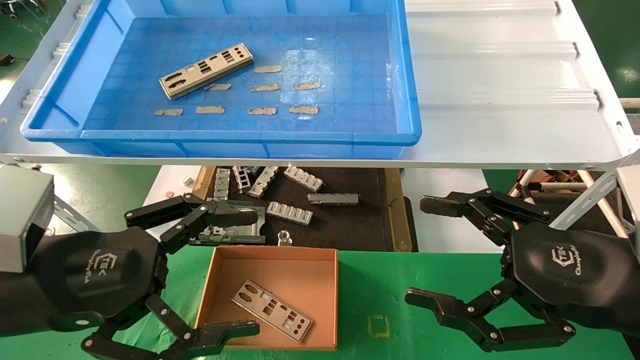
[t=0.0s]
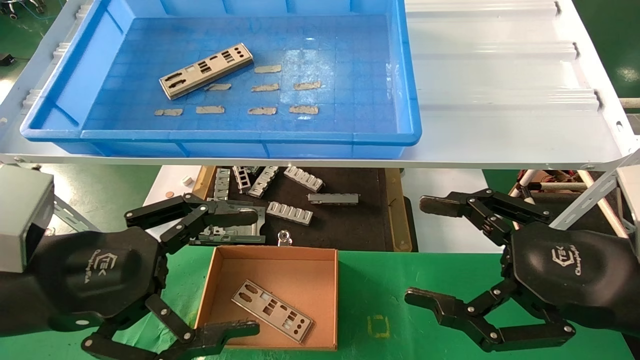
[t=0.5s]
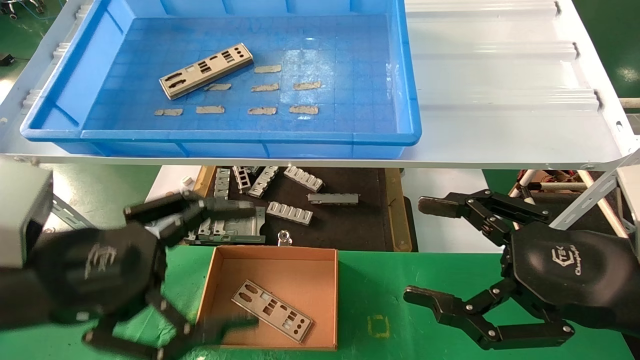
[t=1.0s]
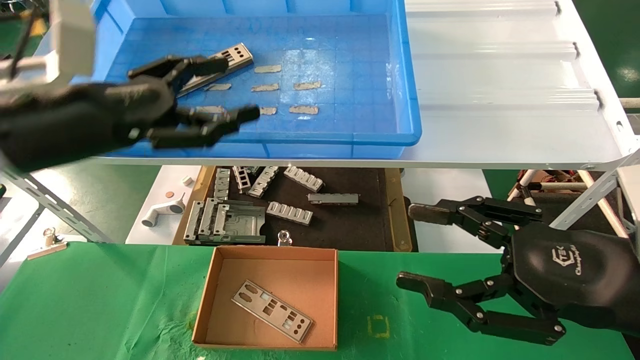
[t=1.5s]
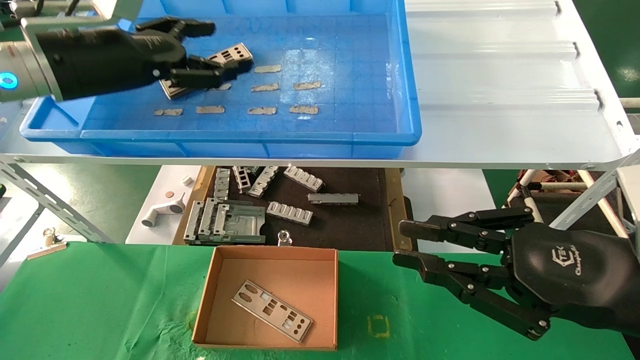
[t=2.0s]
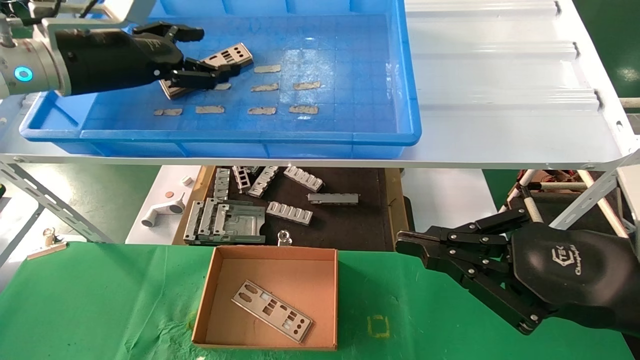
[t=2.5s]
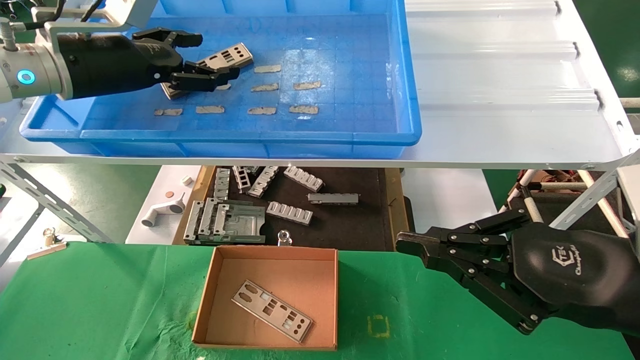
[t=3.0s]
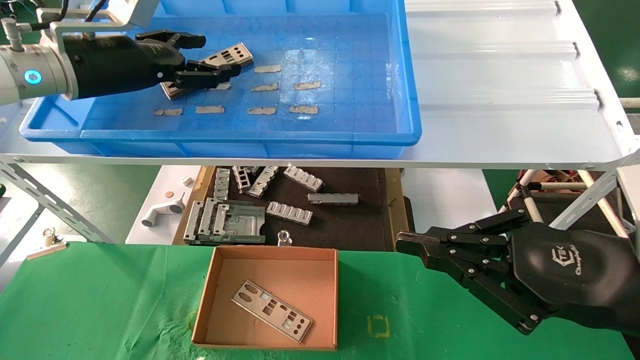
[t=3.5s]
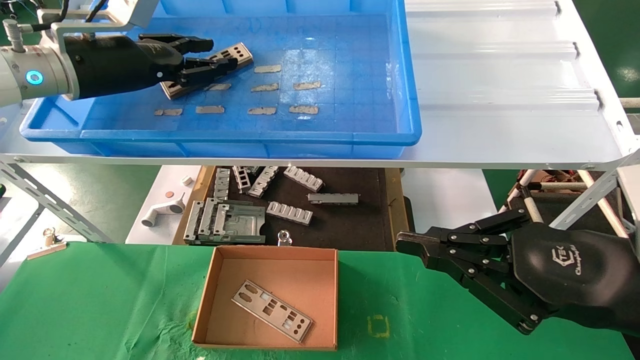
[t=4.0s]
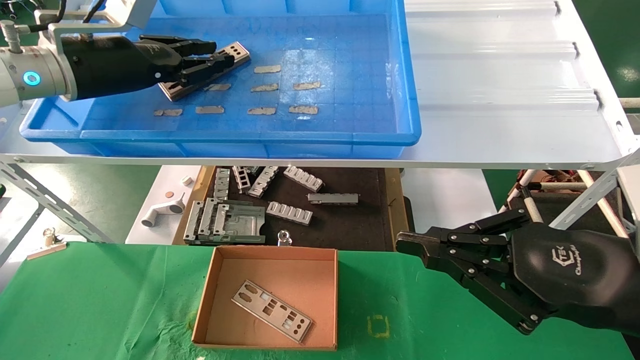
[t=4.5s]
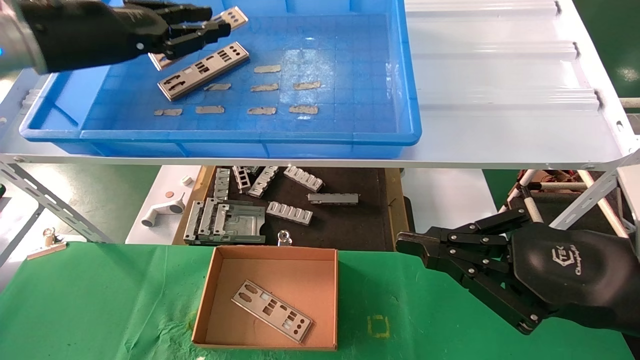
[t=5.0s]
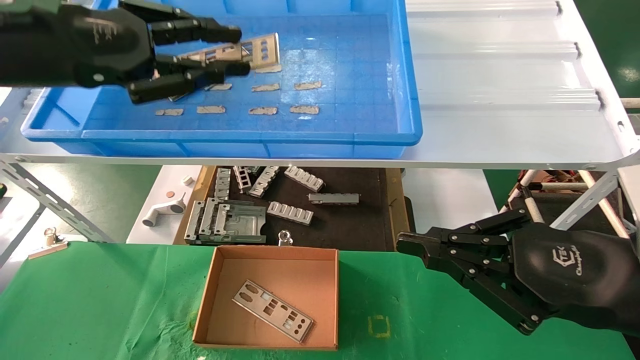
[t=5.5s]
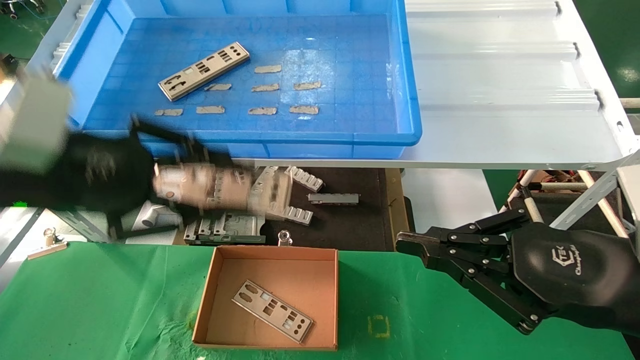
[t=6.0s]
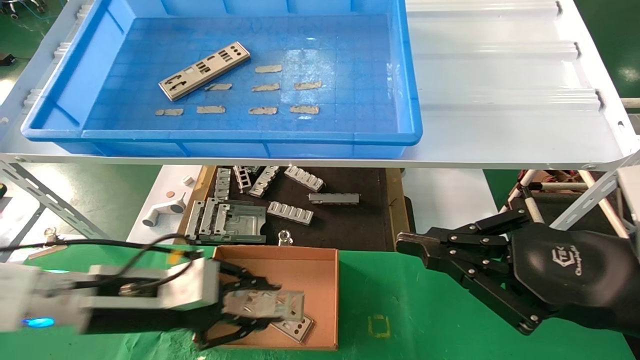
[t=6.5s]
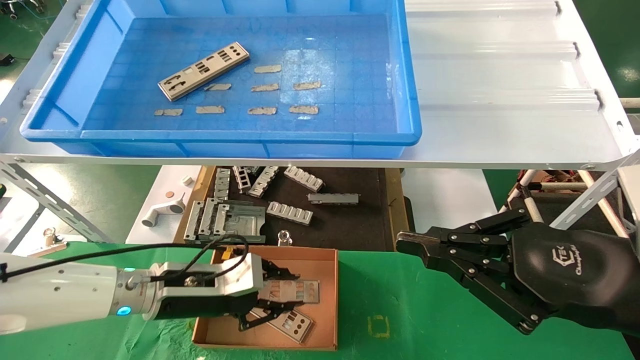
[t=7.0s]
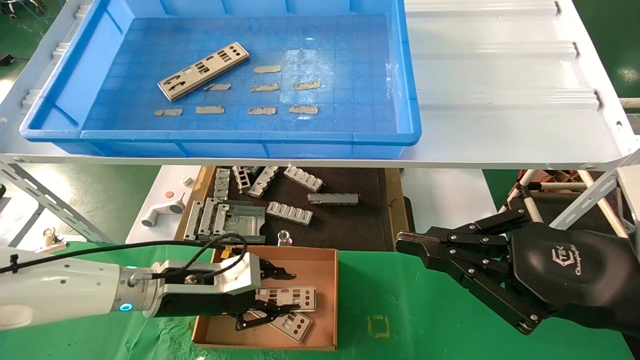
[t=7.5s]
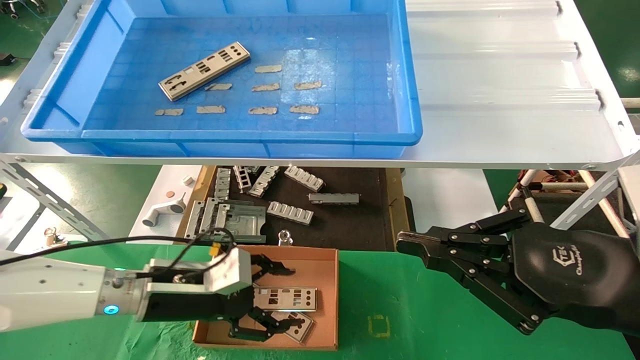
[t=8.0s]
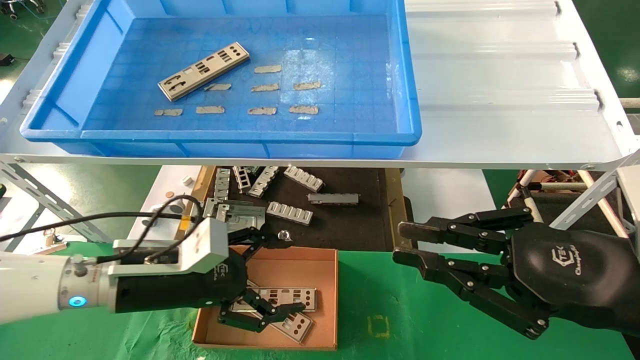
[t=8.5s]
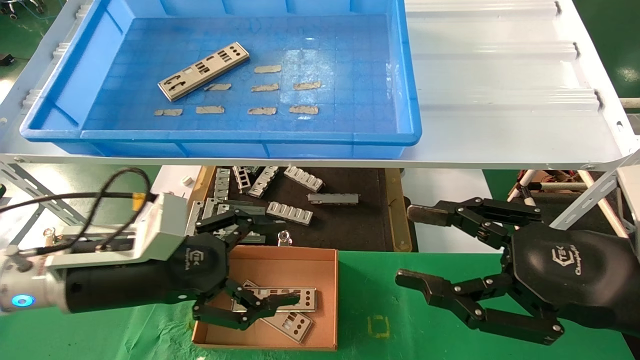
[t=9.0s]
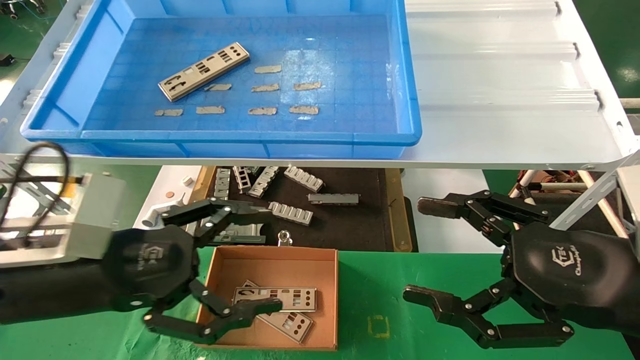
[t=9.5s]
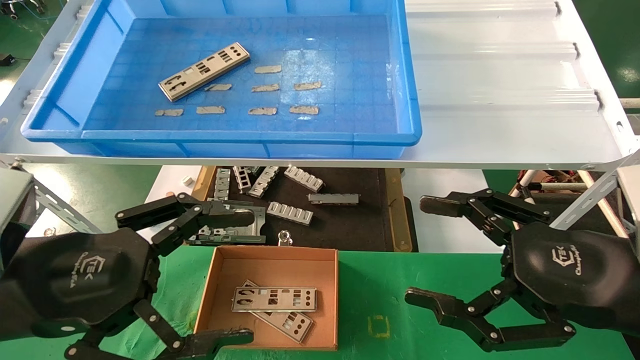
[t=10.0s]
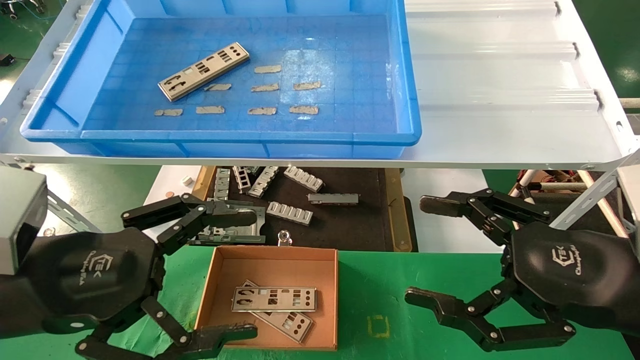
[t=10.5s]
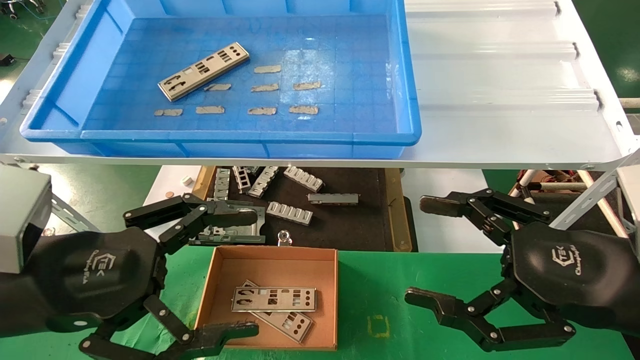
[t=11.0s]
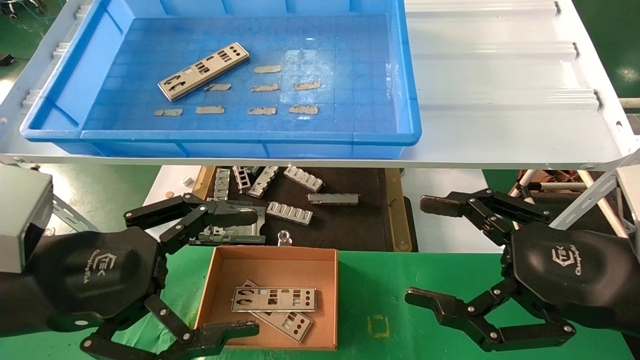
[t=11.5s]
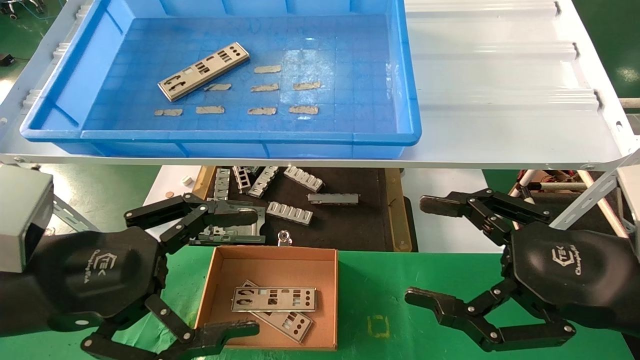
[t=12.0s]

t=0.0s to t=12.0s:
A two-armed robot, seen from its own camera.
Task of the whole recording: pick up the parts on the tray and put them in the cardboard box.
Step, t=1.5s to t=4.5s: Pick up the IO bracket from the container box.
Step, t=5.0s to t=7.5s: Place the IO bracket into the ingredient slot.
t=0.0s to t=2.0s: The left gripper goes roughly 25 cm forward and upward, while the right gripper closes up.
t=2.0s to t=4.0s: The left gripper closes.
t=4.0s to t=6.0s: The left gripper travels backward and downward by approximately 20 cm, and closes up.
t=6.0s to t=8.0s: The left gripper is displaced downward and forward by about 20 cm, and opens.
t=8.0s to t=10.0s: The right gripper opens its fingers, while the left gripper shifts approximately 20 cm backward and upward, and opens its fingers.
t=10.0s to t=12.0s: Neither gripper changes place.

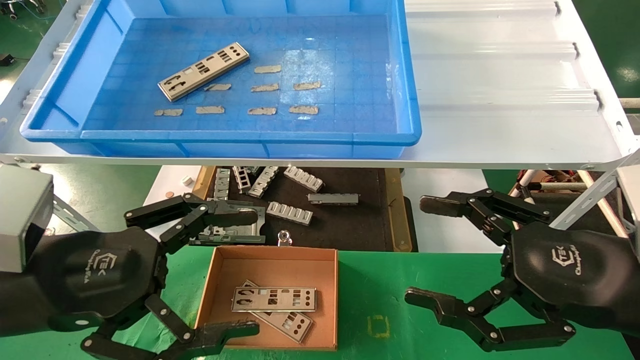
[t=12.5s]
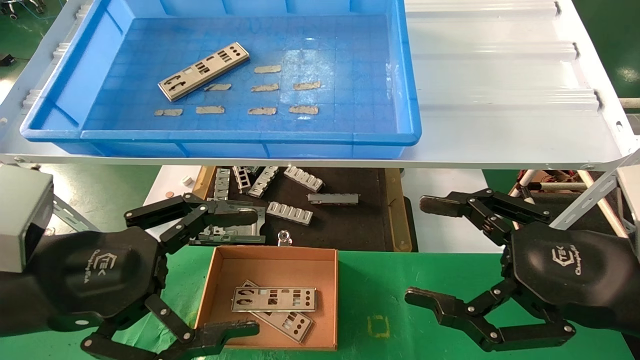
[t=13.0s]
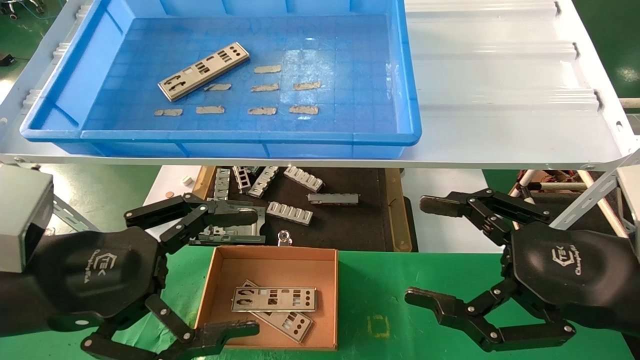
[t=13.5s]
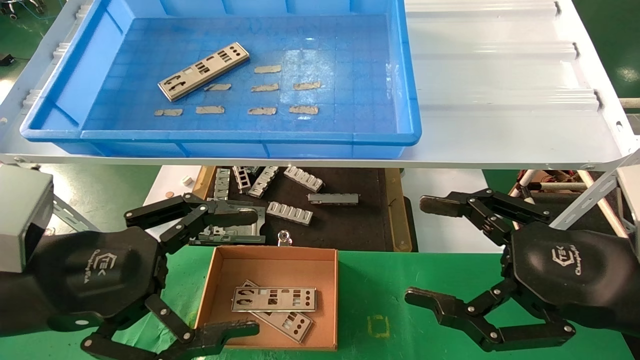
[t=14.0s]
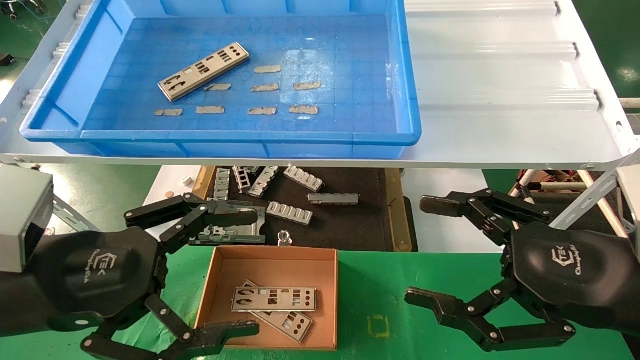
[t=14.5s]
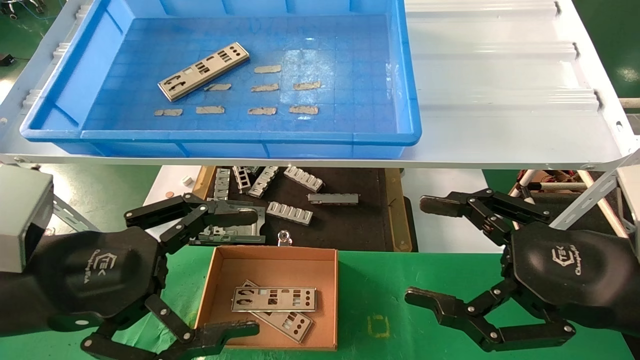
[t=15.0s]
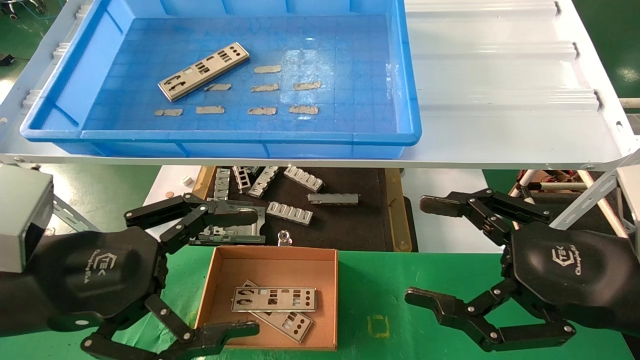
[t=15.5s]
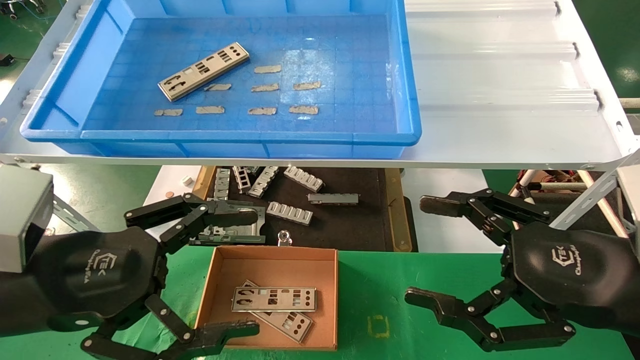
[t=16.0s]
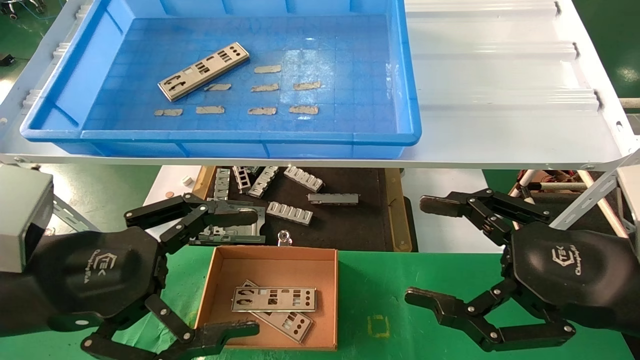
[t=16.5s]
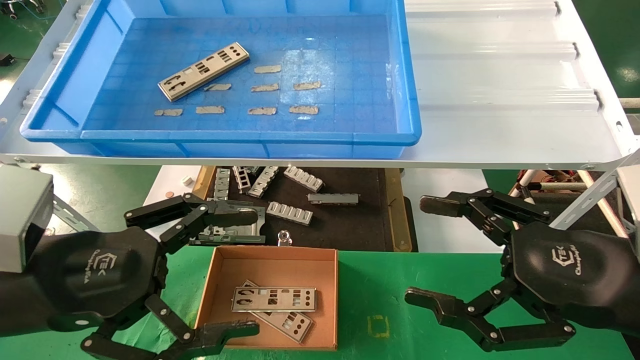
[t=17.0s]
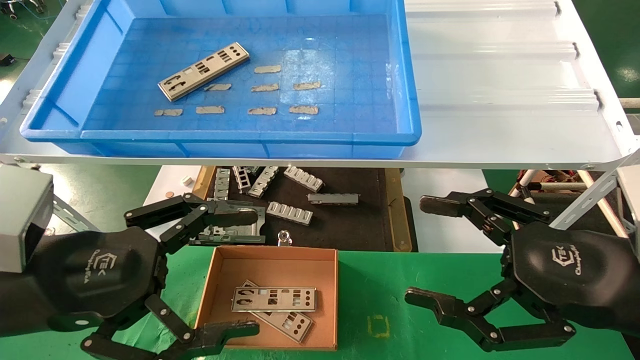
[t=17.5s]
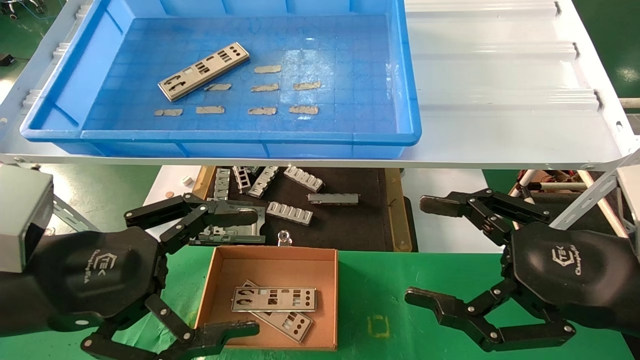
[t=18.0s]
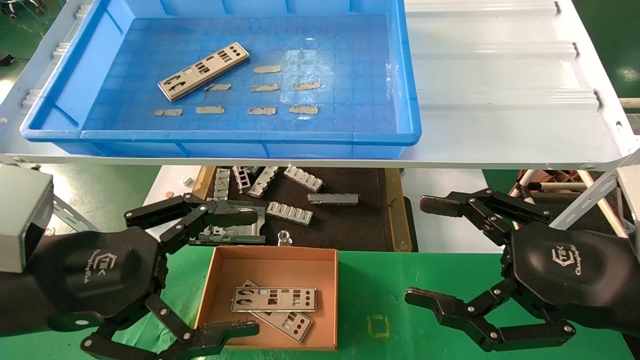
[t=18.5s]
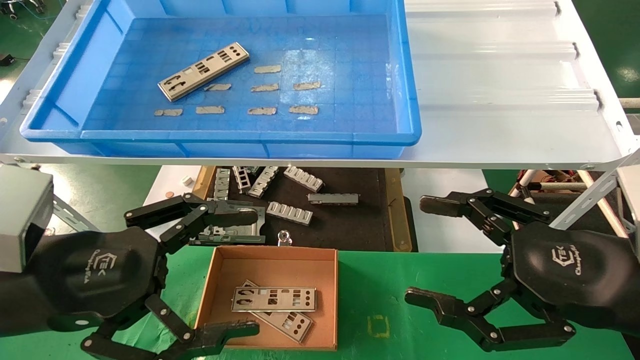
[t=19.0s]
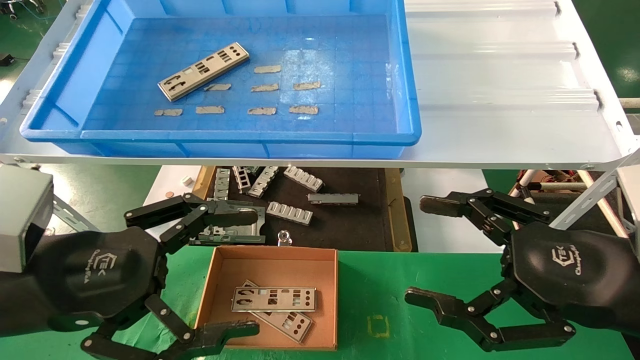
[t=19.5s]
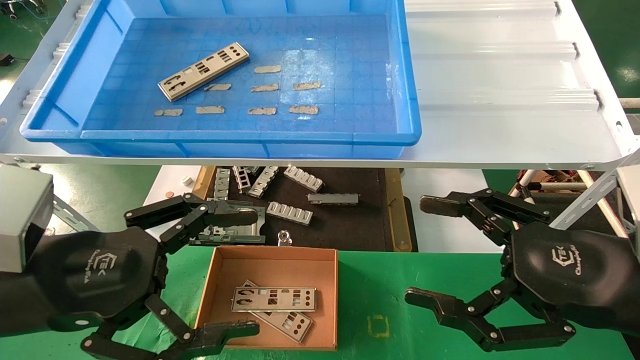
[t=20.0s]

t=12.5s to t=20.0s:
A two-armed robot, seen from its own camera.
Task of the whole recording: pick up the parts on the tray and put them in the cardboard box.
t=12.5s to t=20.0s: The two grippers keep their place.
